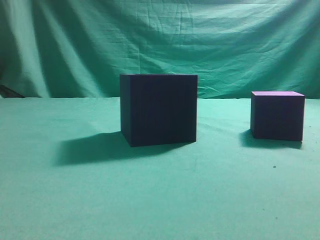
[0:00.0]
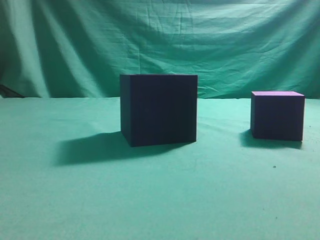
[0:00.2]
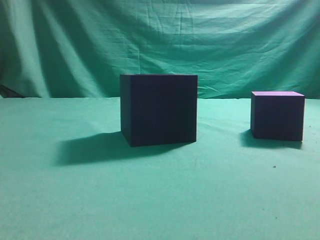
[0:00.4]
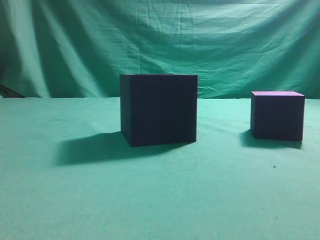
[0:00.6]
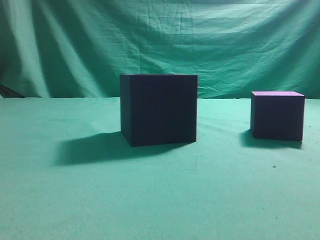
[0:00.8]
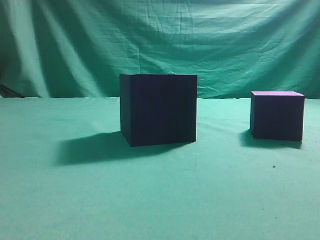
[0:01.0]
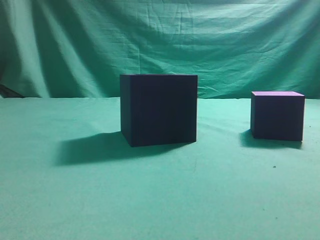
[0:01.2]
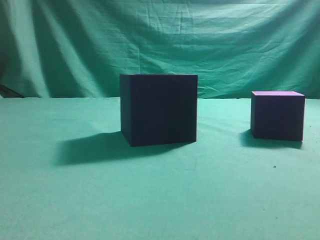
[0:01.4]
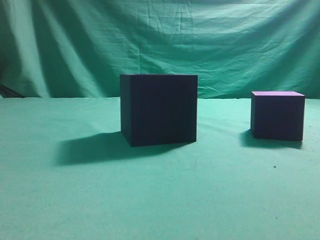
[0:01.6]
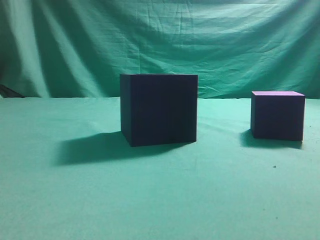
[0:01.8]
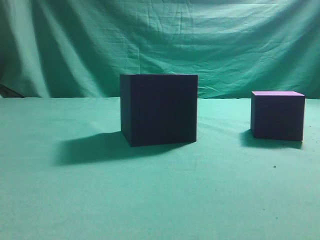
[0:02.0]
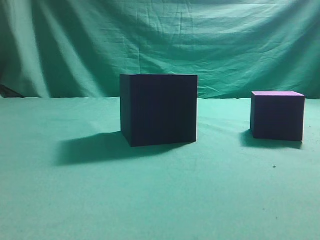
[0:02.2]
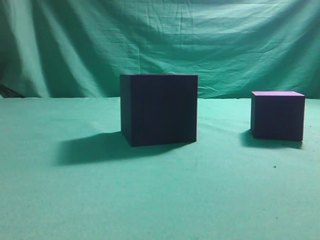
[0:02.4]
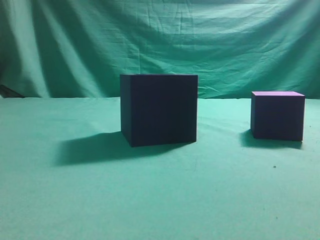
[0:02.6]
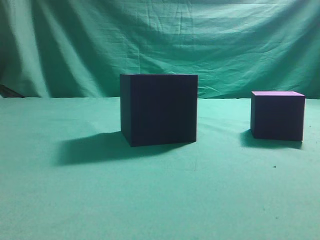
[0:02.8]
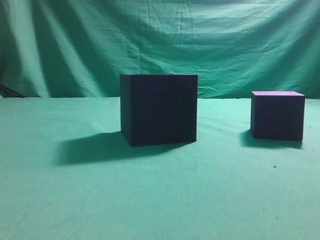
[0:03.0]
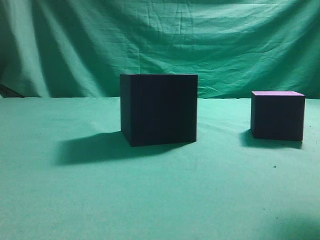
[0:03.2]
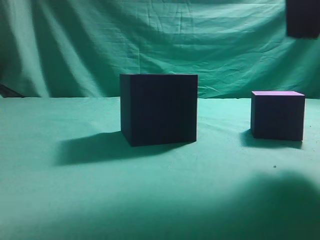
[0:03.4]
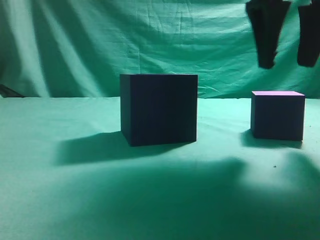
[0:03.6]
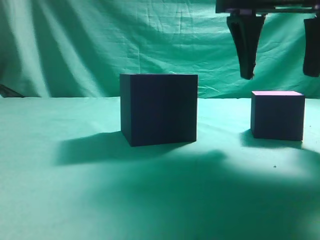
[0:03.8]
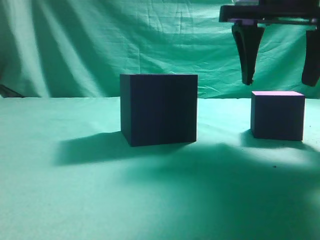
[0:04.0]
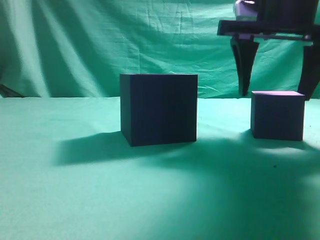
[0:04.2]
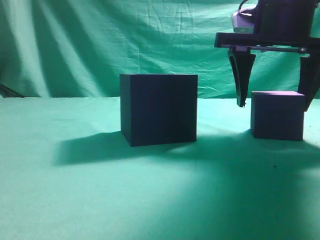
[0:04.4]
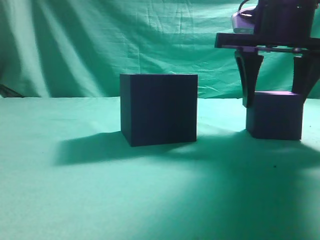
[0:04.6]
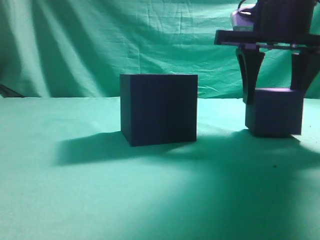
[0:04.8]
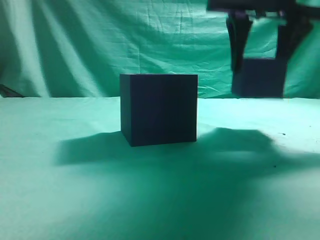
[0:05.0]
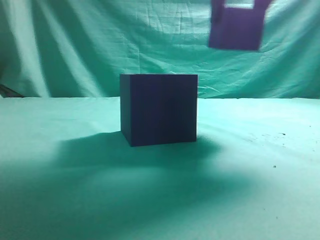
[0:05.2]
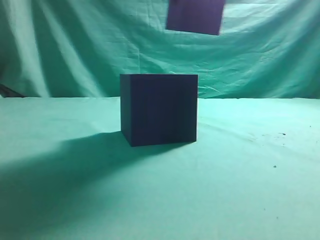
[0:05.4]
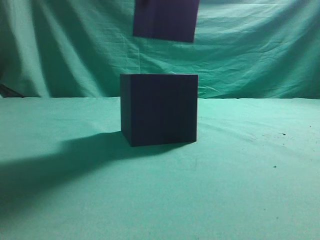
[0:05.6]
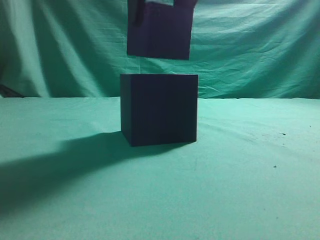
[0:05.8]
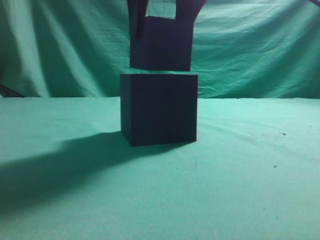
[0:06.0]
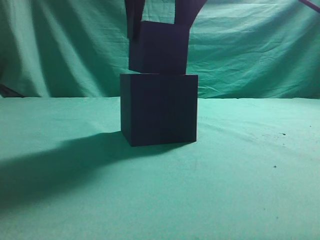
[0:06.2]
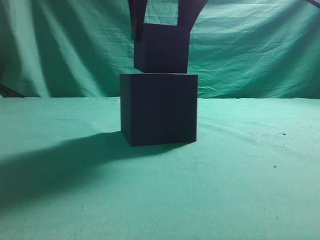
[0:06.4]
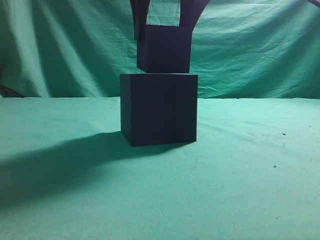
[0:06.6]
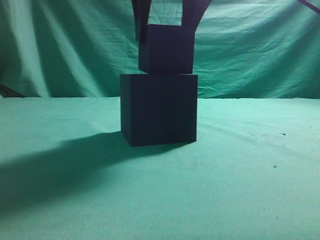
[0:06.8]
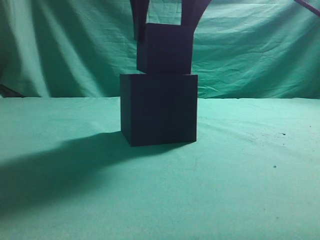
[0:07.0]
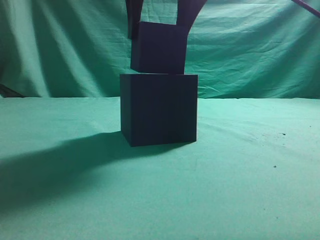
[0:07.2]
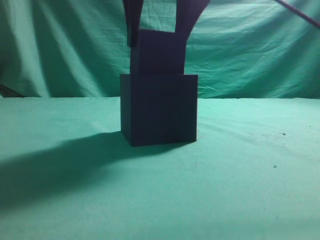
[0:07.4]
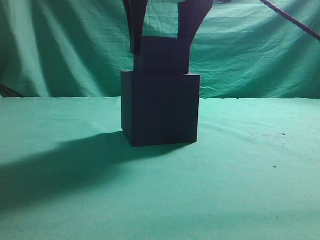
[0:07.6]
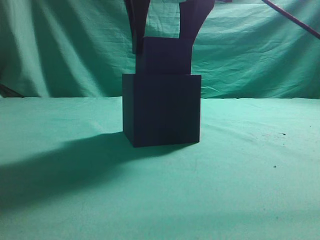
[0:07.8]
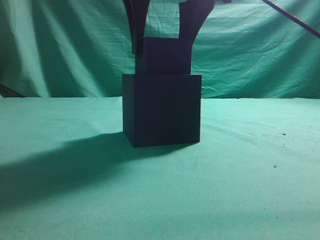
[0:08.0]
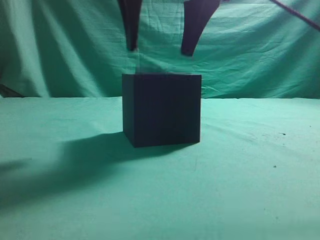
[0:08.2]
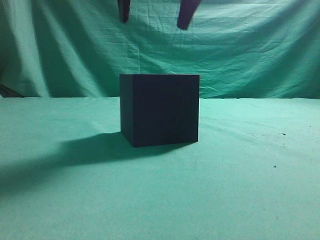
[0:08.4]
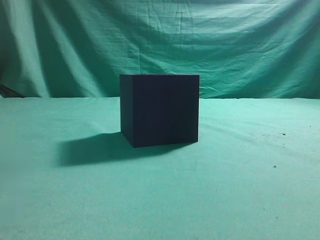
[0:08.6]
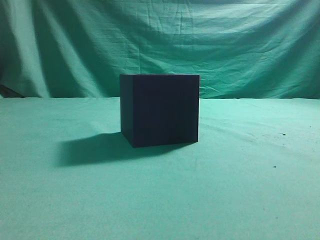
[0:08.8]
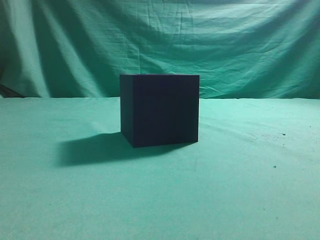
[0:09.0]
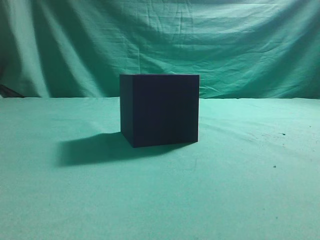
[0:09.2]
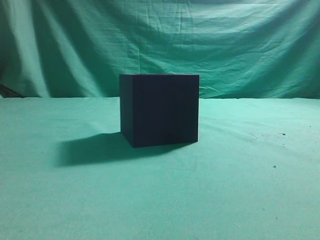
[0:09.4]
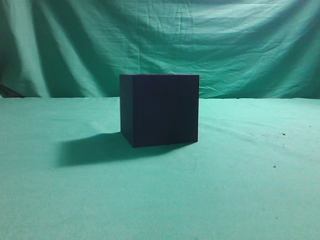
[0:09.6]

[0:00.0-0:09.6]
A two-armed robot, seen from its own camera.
Task of the whole recording: pick up the cube block and place it into the cube groove.
Step, 0:00.0 to 0:04.8: Grasp the cube.
Step, 0:05.0 to 0:08.2: Place cube into the cube-shaped recess.
0:01.6 to 0:03.2: The right gripper travels forward, upward and to the left by approximately 20 cm.
0:03.2 to 0:04.8: The right gripper shifts approximately 15 cm forward and downward, and opens up.
0:04.8 to 0:06.4: The right gripper moves to the left and upward, some 15 cm.
0:06.4 to 0:08.0: The grippers move only a little.
0:08.0 to 0:09.6: The right gripper moves backward, to the right and upward, approximately 30 cm, and closes up.
